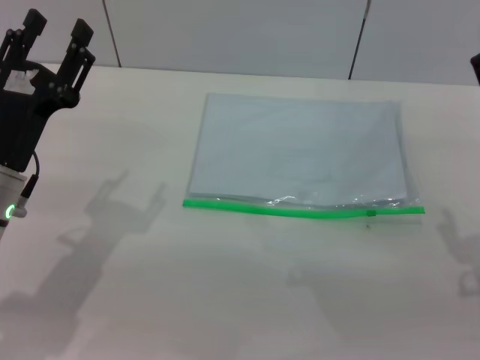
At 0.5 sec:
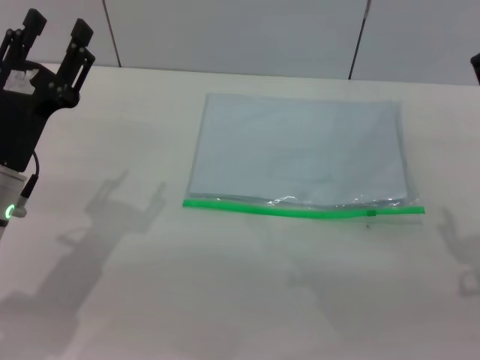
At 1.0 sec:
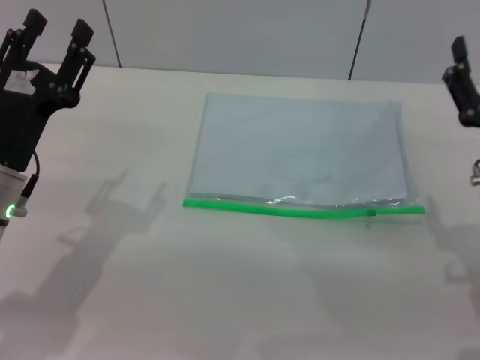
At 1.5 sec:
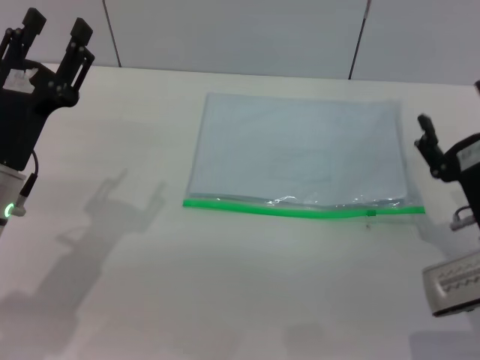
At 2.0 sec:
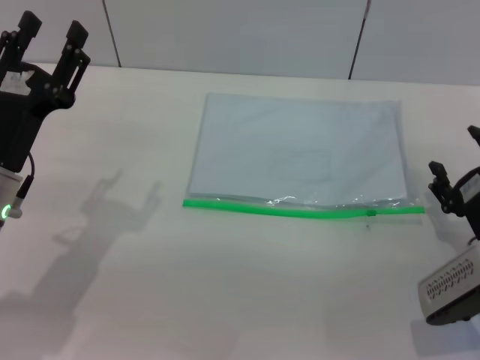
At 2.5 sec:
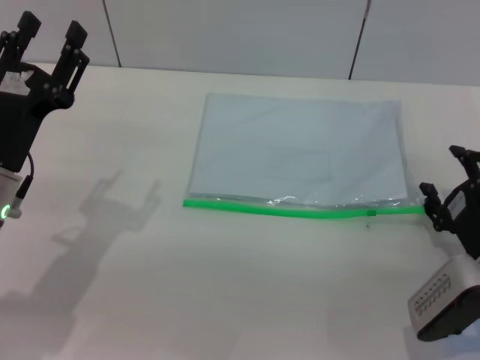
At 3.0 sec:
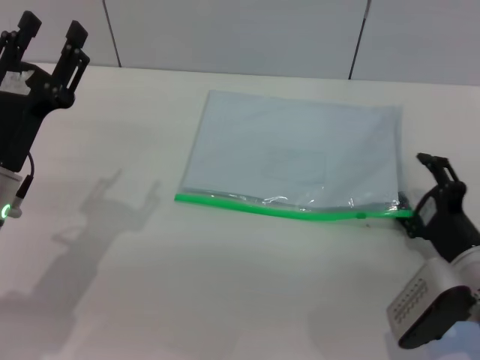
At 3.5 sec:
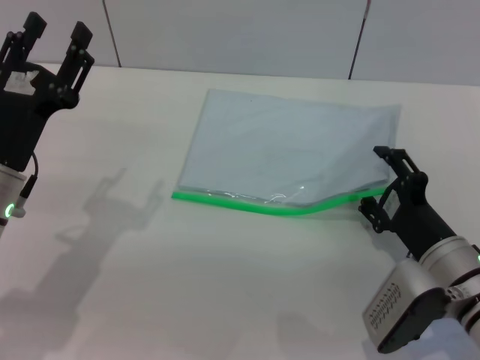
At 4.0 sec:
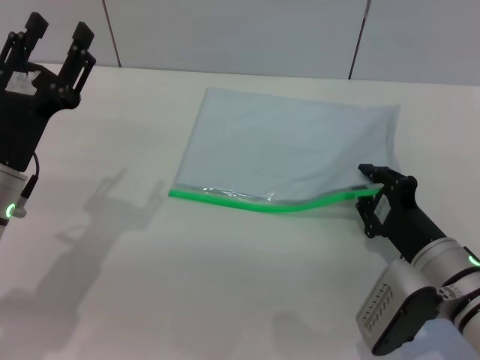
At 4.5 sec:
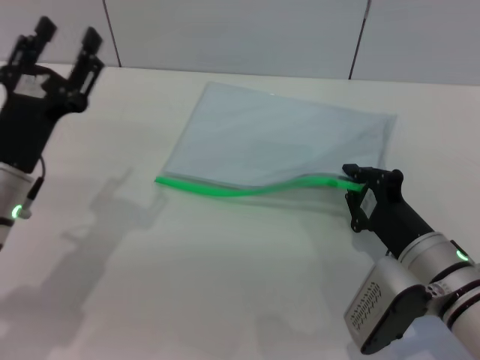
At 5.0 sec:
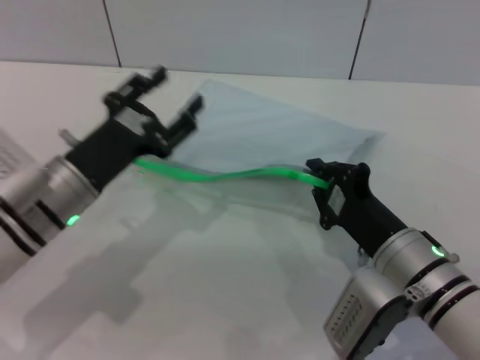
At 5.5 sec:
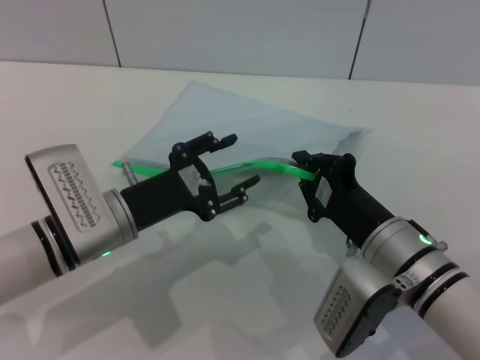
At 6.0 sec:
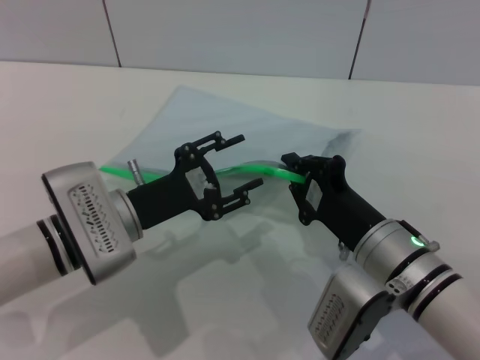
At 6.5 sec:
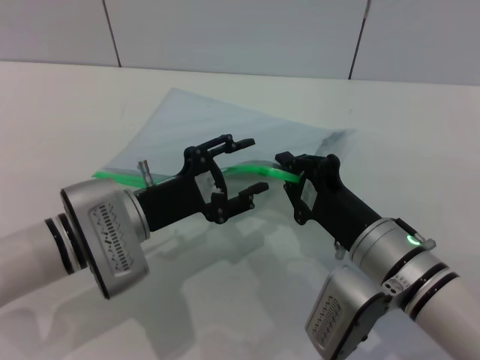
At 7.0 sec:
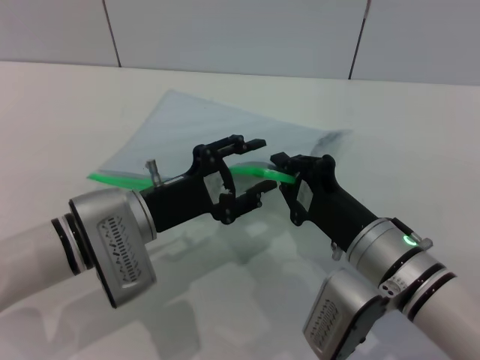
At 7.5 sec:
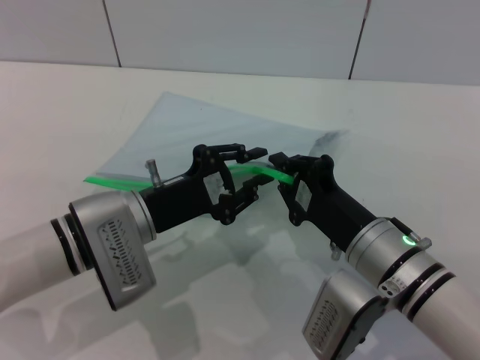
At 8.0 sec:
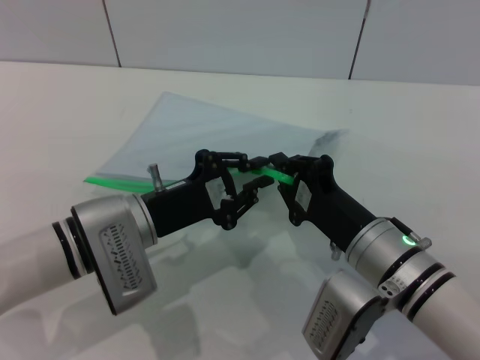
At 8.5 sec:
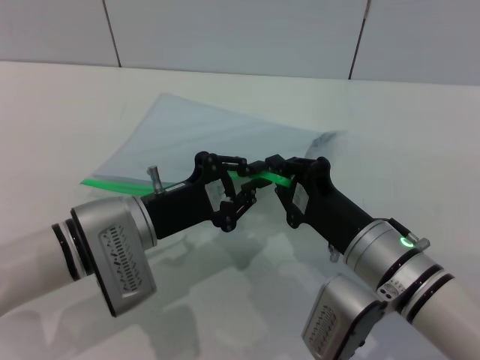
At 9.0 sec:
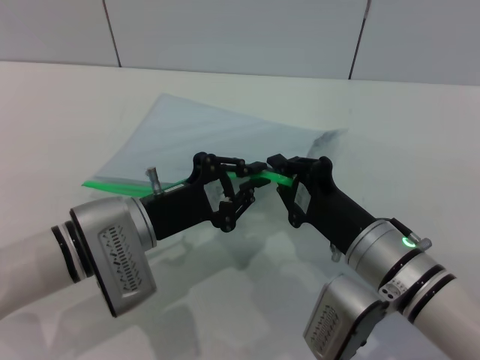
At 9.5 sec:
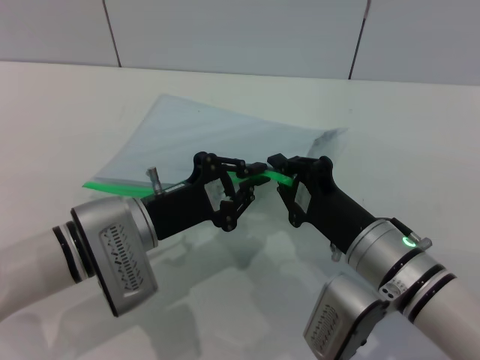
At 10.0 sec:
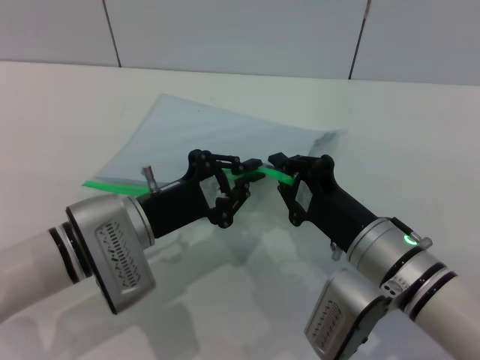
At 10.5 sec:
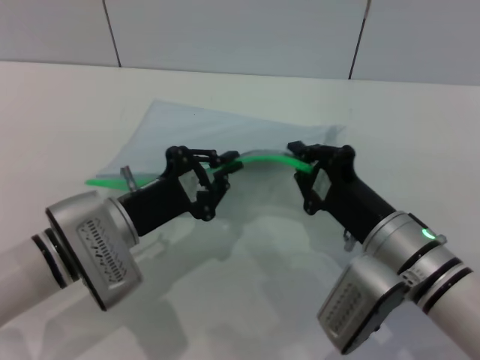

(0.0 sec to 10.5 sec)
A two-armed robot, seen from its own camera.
Step, 0.0 sec - 5.5 sec: Pick up the transparent plastic bag with the right gripper.
0.0 sec - 2.0 sec: The right gripper heads downward, covering some 10 cm.
2.0 sec - 4.0 sec: The right gripper is displaced to the left by some 5 cm, and closes.
4.0 sec - 6.5 sec: The left gripper shifts roughly 10 cm to the right; the right gripper moves to the left, roughly 5 cm, and closes up.
6.5 sec - 8.5 sec: The left gripper closes.

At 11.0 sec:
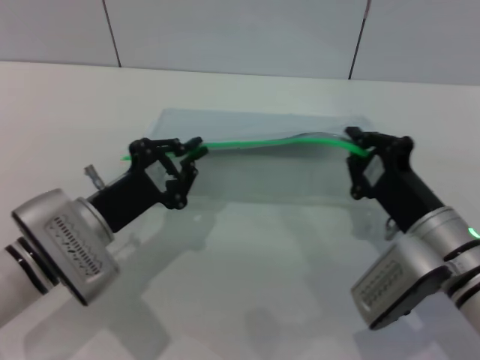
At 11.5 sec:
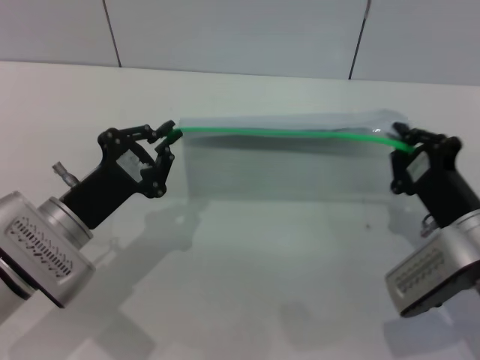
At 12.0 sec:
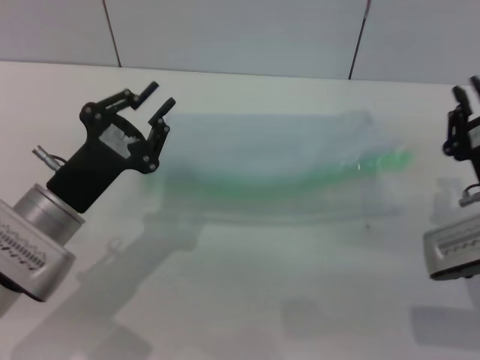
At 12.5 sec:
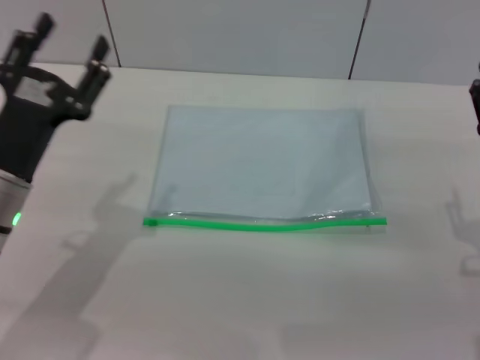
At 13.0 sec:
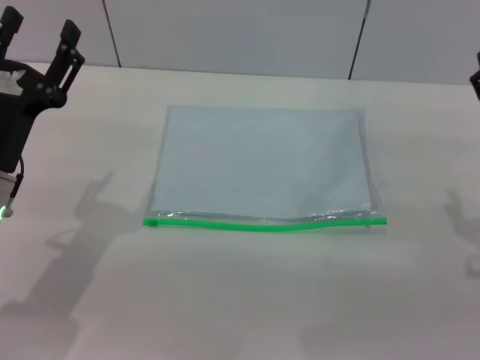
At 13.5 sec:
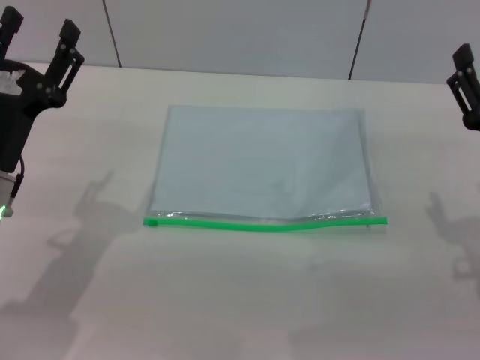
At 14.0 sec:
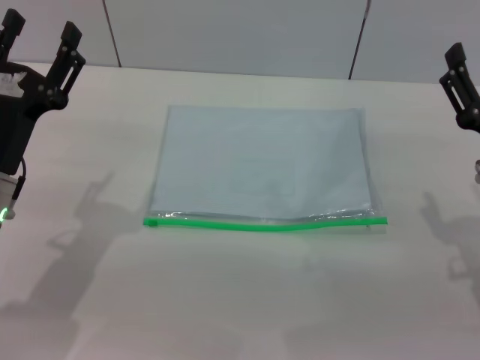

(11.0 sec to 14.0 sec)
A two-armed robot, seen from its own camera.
Step, 12.0 sec - 12.5 sec: Place the transparent plastic bag.
11.0 sec - 12.5 sec: The left gripper moves approximately 5 cm, and opens up, while the right gripper moves to the right, roughly 5 cm, and opens up.
12.5 sec - 14.0 sec: The right gripper opens its fingers, while the left gripper opens up.

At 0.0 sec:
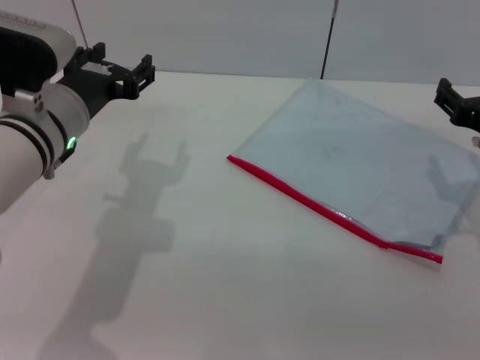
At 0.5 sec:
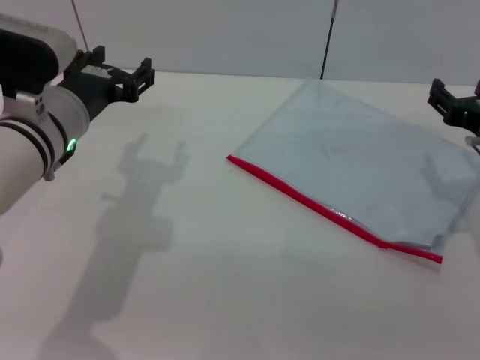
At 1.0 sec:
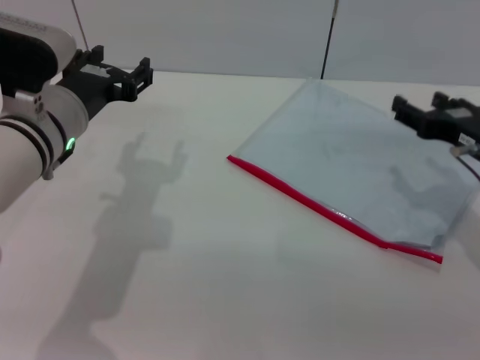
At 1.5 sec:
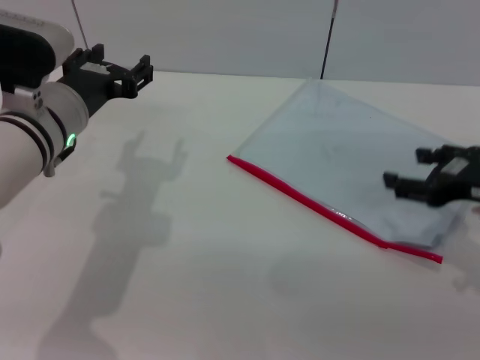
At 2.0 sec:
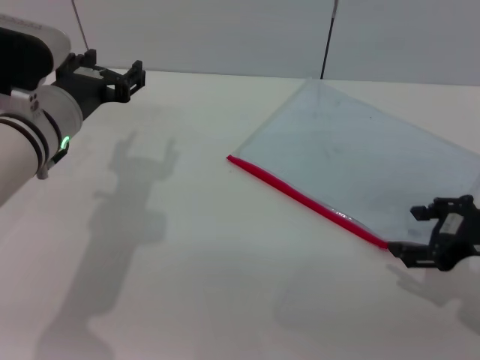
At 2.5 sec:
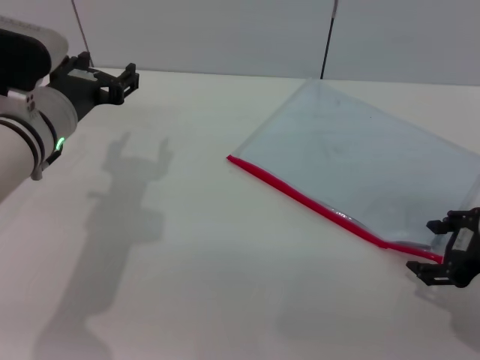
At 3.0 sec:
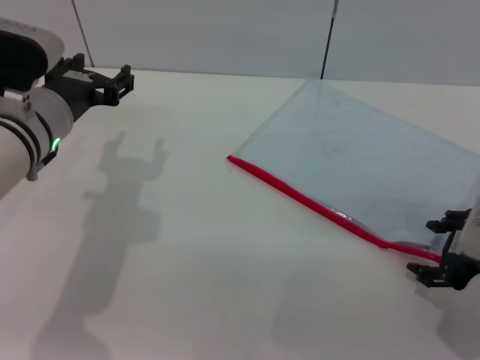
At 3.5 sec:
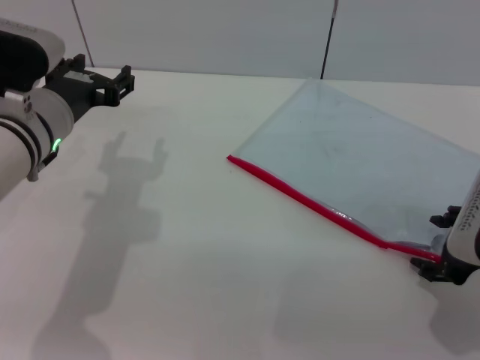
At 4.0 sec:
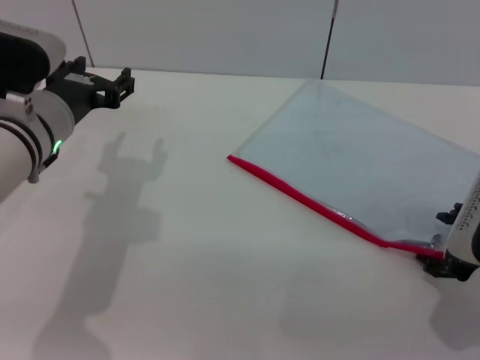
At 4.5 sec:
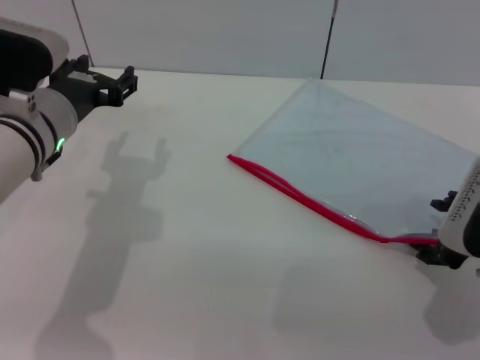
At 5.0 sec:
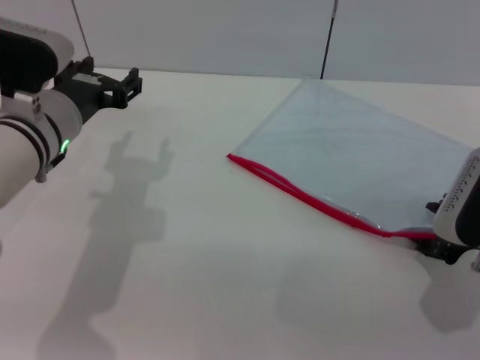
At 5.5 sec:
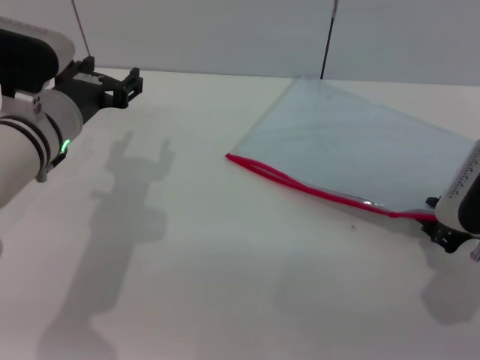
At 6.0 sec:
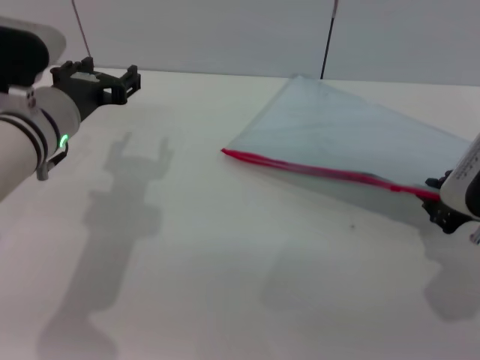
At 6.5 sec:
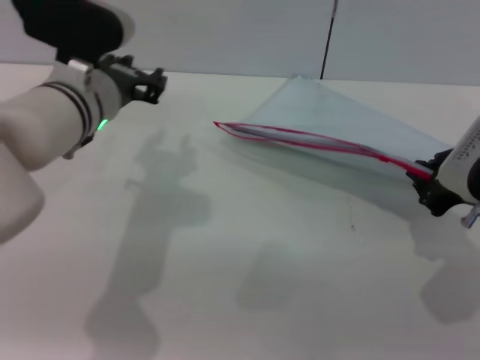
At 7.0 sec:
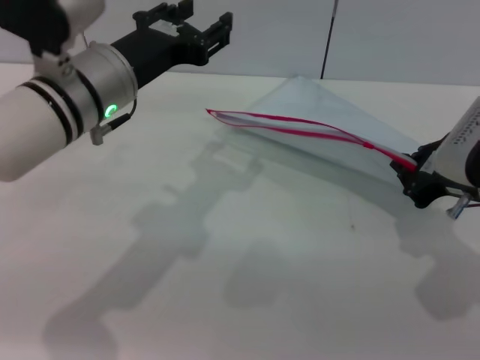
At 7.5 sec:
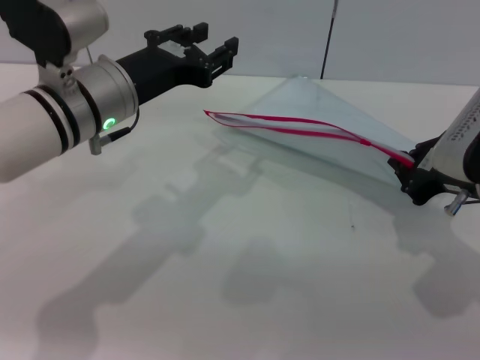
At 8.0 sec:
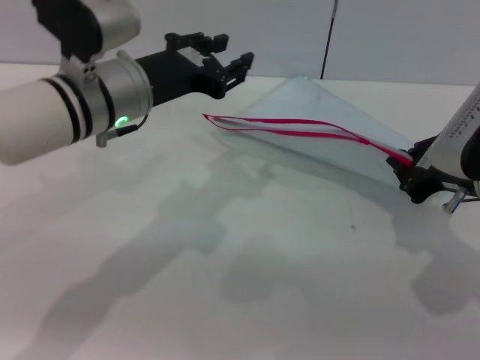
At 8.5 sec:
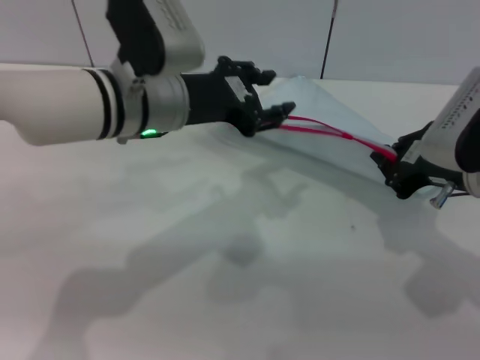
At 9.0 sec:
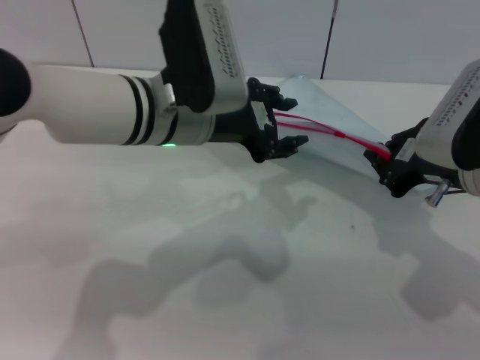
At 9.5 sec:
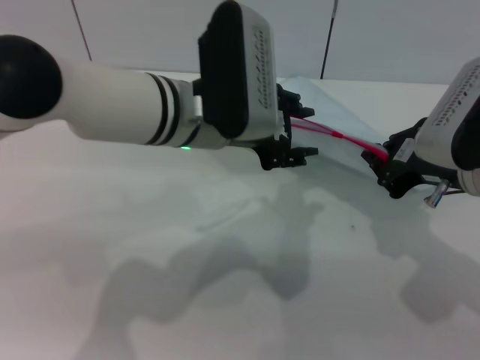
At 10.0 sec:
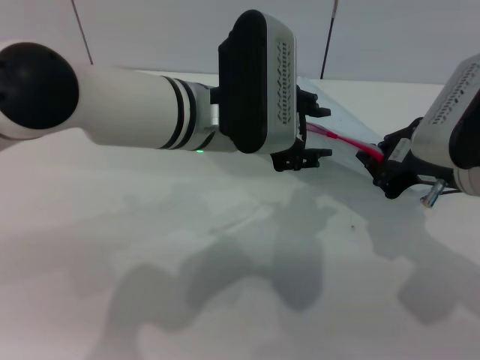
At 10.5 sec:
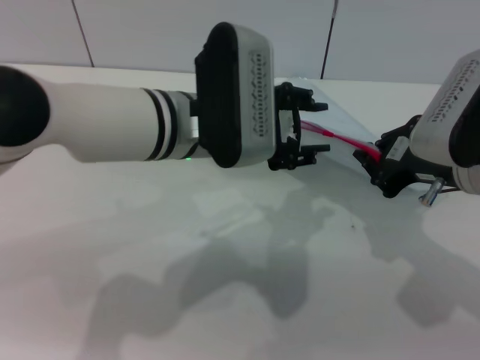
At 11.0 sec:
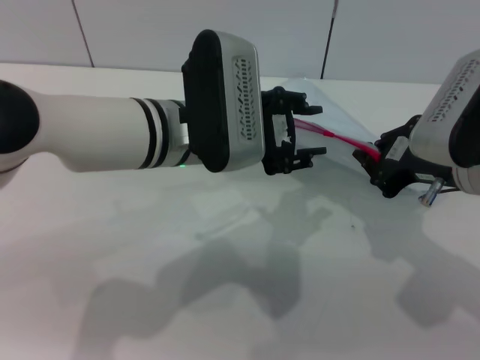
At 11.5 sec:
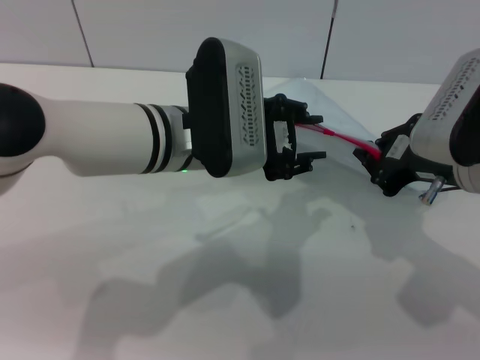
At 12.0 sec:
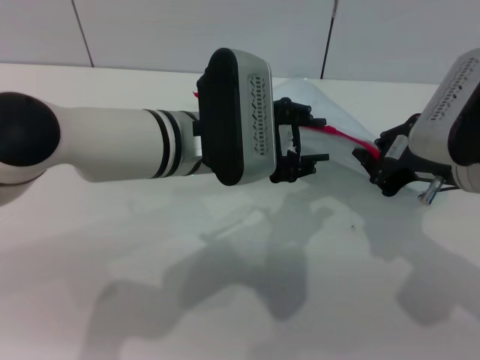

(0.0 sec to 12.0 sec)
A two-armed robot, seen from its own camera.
Step, 0.0 sec - 7.0 sec: Pick up the transparent plastic bag with the right gripper.
4.0 sec - 6.0 sec: The right gripper closes up.
6.0 sec - 8.0 sec: The left gripper goes about 5 cm to the right.
8.0 sec - 10.0 sec: The left gripper is displaced to the right by roughly 10 cm.
